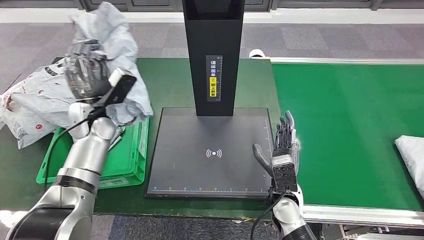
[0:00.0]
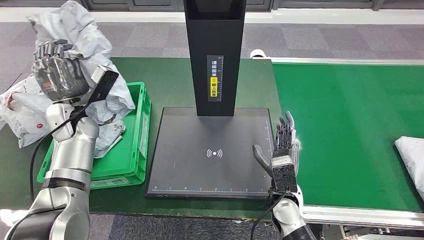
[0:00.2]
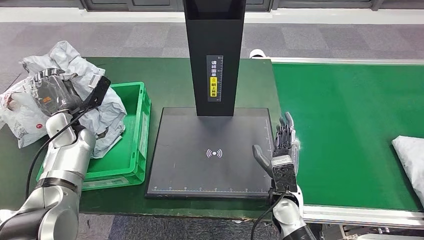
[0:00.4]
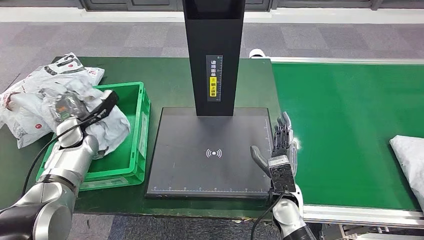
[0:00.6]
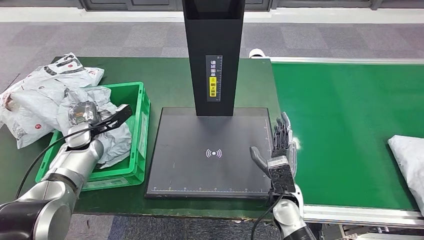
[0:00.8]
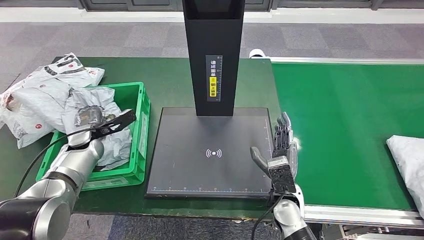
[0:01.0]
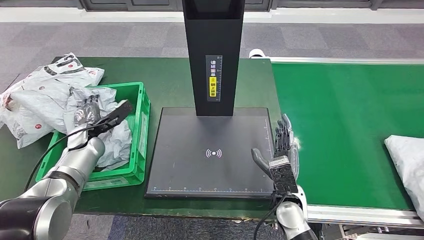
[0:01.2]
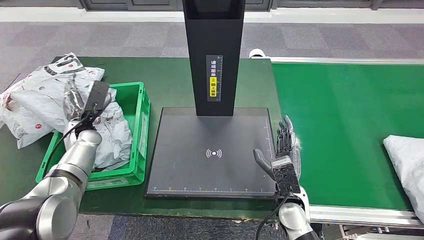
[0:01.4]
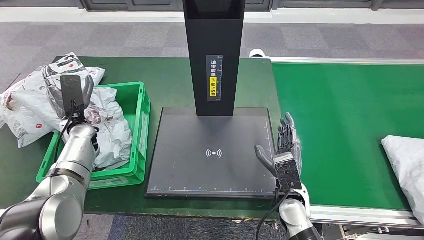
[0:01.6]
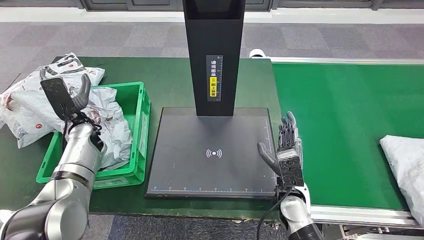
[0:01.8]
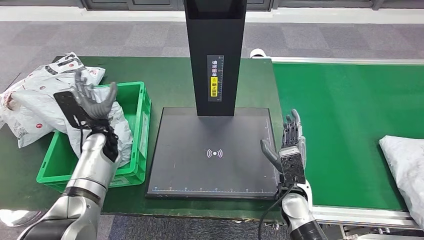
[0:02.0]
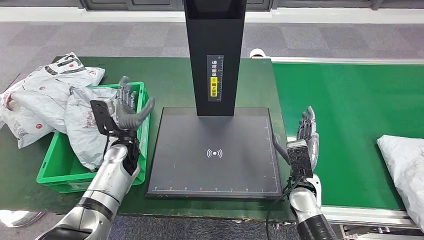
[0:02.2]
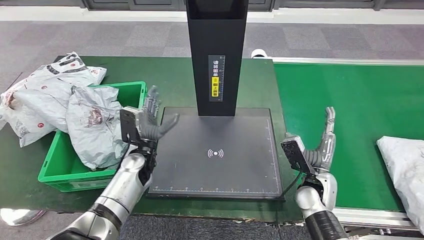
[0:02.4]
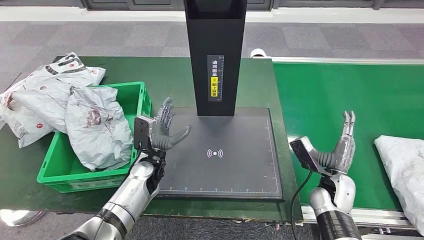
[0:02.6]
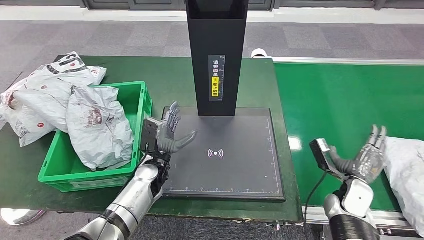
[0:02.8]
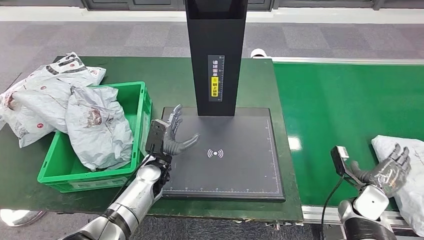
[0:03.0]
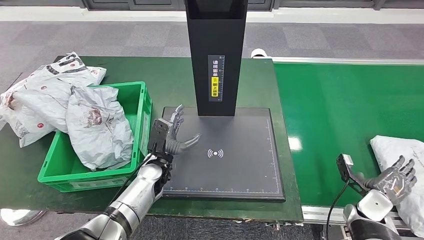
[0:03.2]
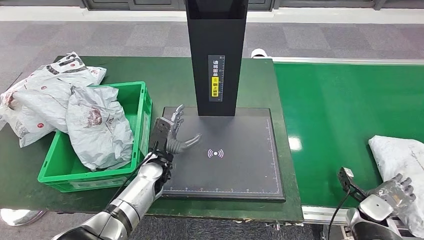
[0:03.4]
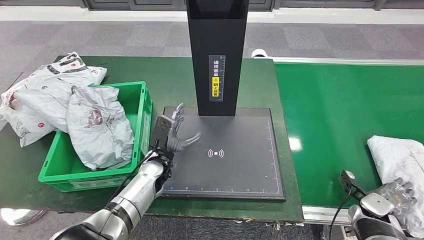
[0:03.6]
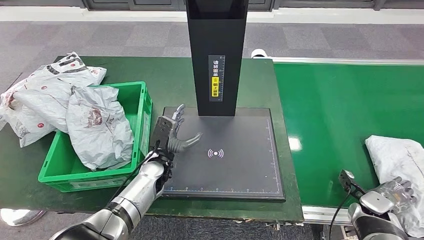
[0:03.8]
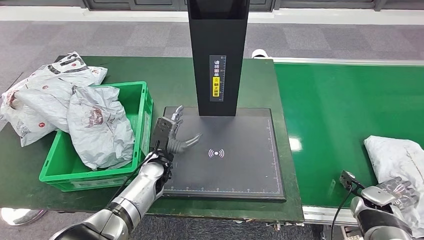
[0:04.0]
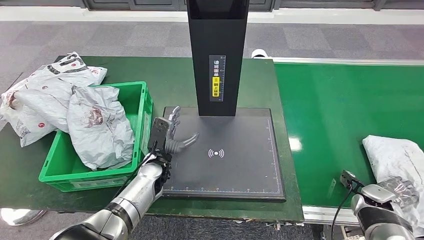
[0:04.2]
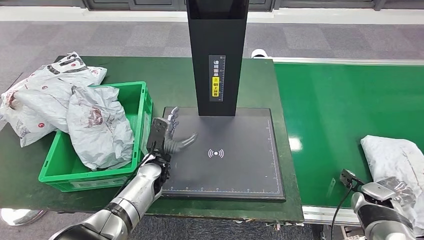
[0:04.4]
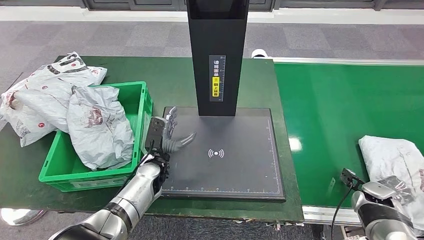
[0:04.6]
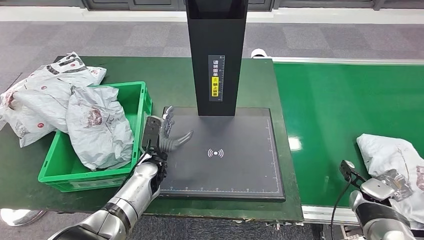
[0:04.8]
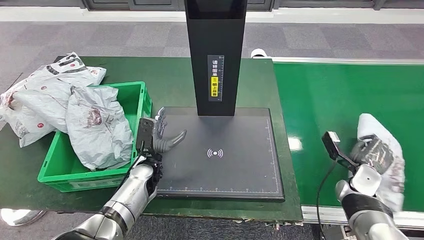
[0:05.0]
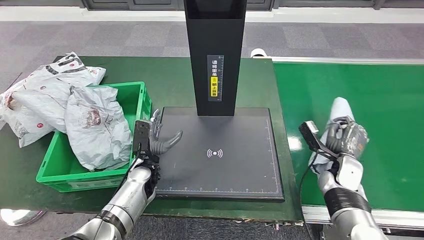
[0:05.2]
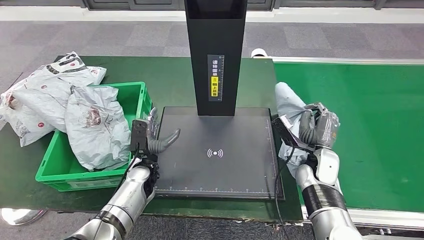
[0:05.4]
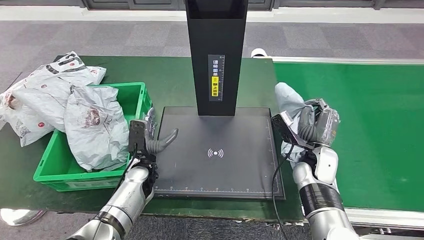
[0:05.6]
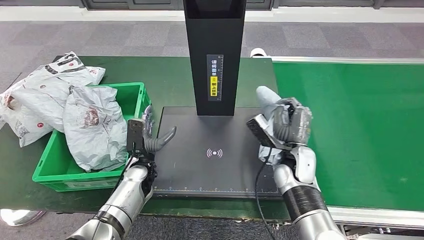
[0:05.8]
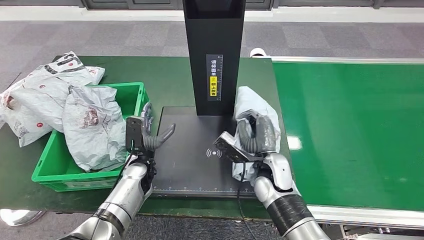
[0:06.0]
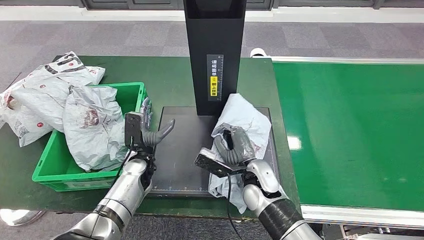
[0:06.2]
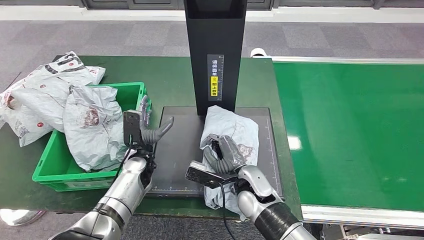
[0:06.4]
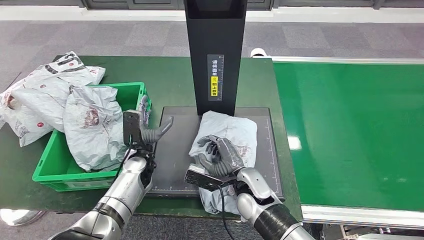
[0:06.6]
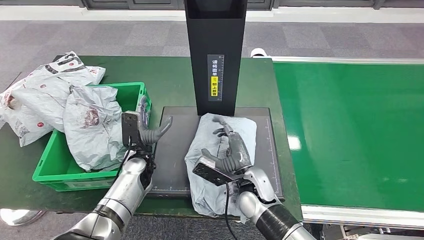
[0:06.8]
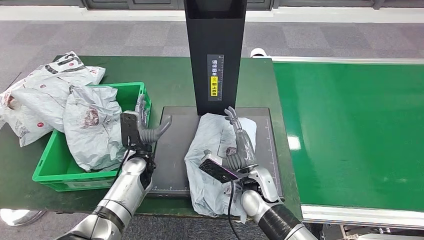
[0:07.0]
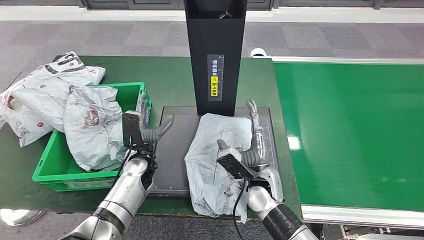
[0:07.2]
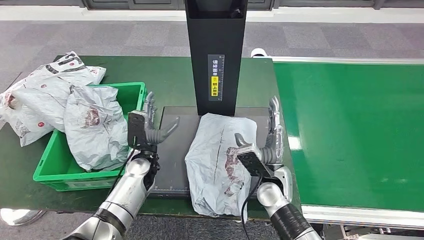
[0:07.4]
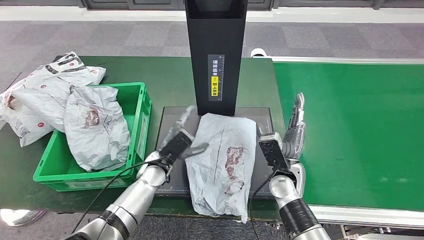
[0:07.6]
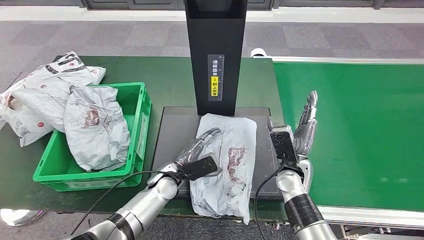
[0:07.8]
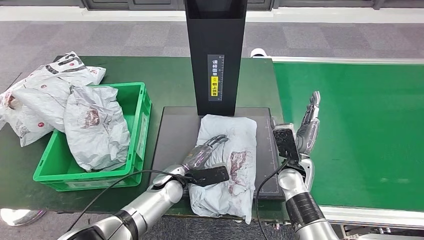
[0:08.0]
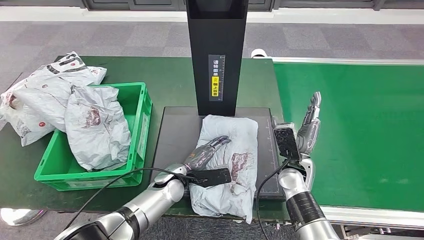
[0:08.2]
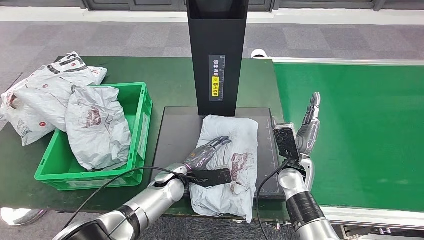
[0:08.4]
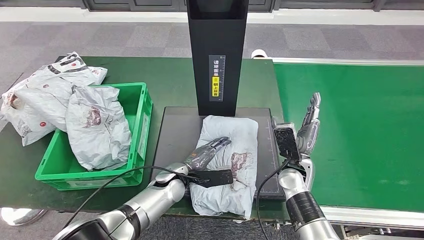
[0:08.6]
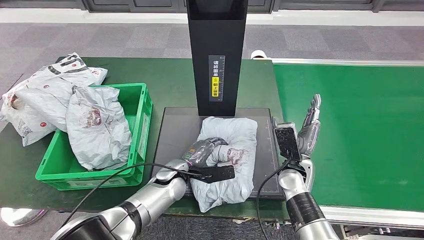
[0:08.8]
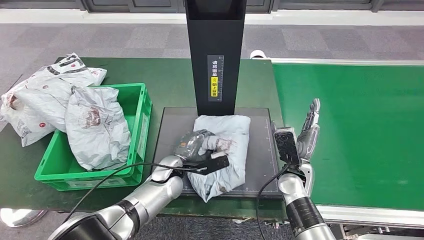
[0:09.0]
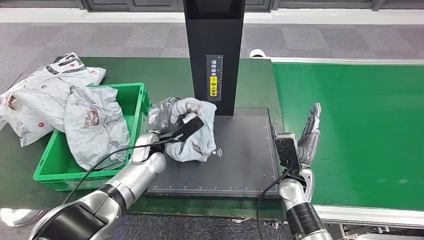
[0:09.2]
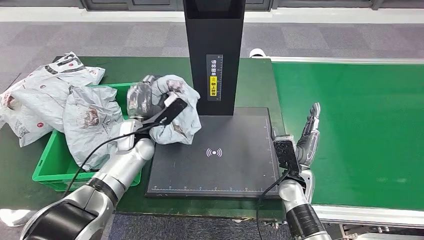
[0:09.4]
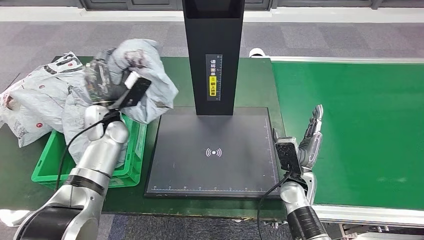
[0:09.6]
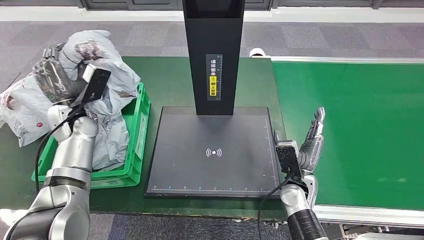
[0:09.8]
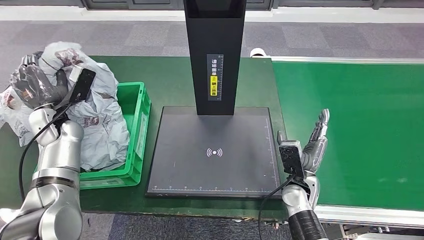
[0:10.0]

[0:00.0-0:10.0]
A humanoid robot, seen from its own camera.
Step, 0:00.0 to 0:01.0: Pick up the parcel from the inbound machine.
Step, 0:01.2 to 0:03.6: Place the parcel into the delivery box.
Step, 0:04.0 to 0:05.8: Pick up the parcel from the conveyor belt.
Step, 0:06.2 to 0:07.6: Place the parcel onto the inbound machine.
0:00.0 to 0:01.4: The left hand travels downward and to the left by some 10 cm.
0:02.8 to 0:04.2: The right hand moves to the right, about 10 cm.
0:05.8 to 0:07.2: The right hand shifts some 10 cm to the left and backward.

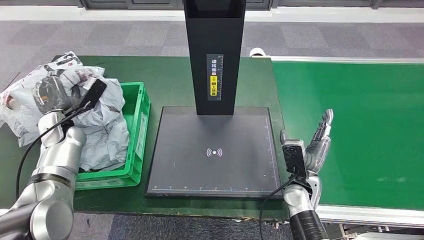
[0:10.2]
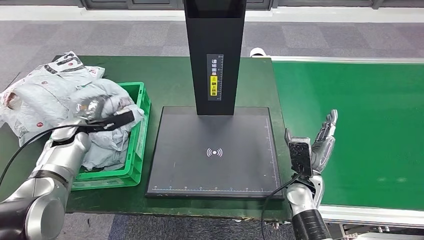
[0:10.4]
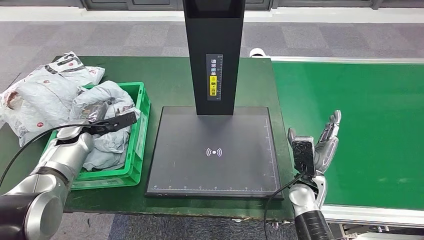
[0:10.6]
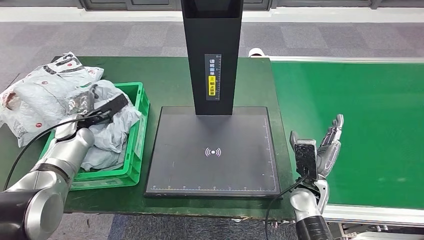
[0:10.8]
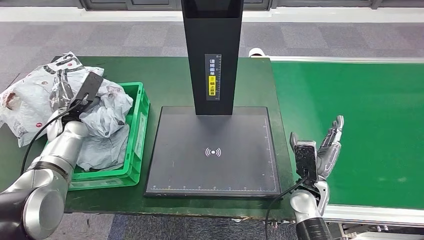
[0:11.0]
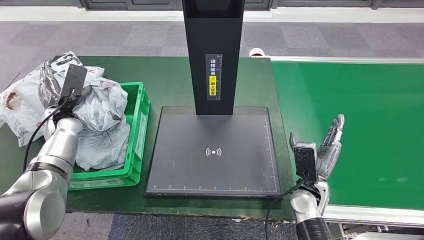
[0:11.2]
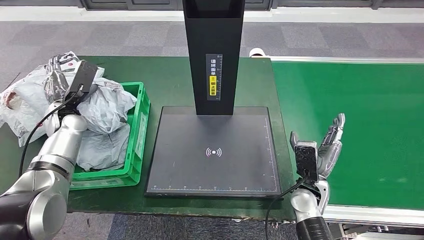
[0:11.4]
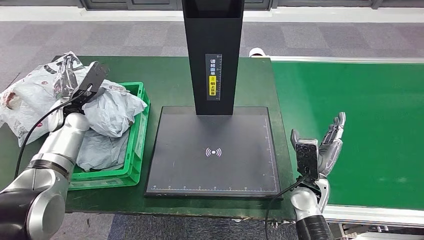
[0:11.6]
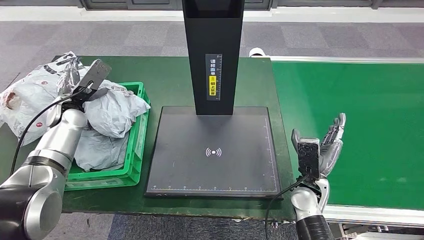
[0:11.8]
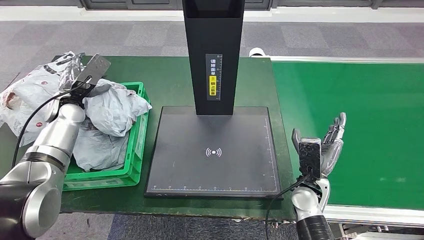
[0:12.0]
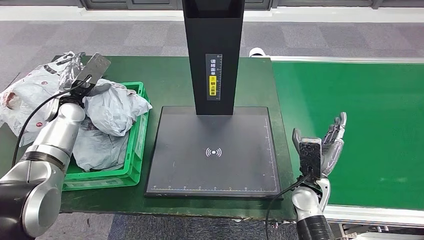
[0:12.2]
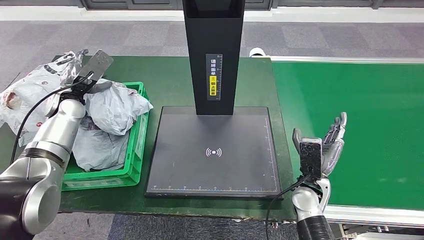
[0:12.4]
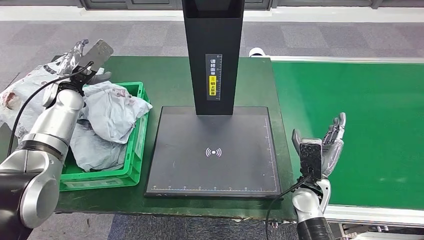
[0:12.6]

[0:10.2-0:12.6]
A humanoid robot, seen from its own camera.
Step, 0:10.6 to 0:12.6: Place the parcel into the delivery box.
0:11.4 to 0:12.6: The left hand is displaced upward by some 5 cm.
